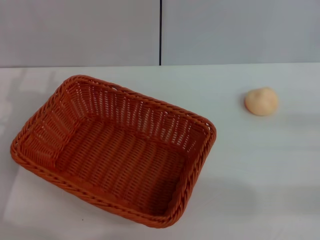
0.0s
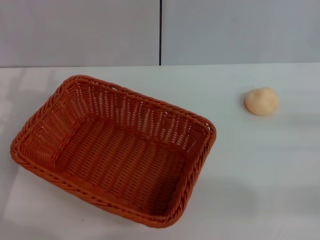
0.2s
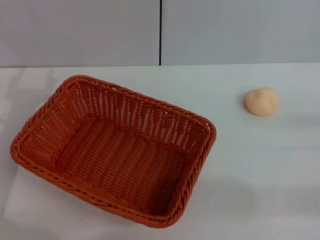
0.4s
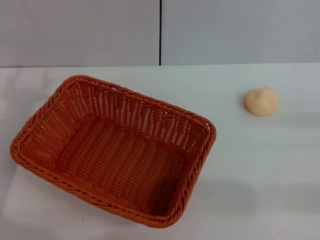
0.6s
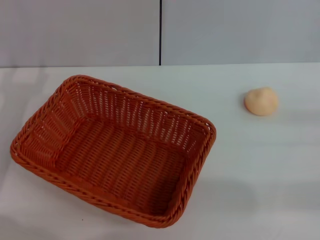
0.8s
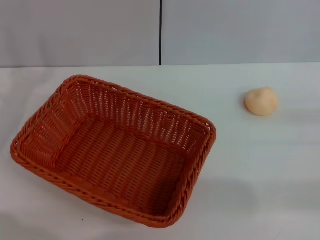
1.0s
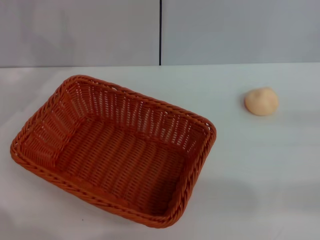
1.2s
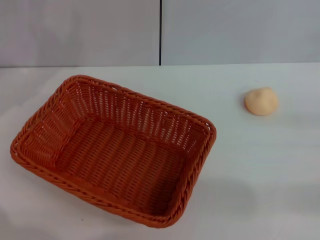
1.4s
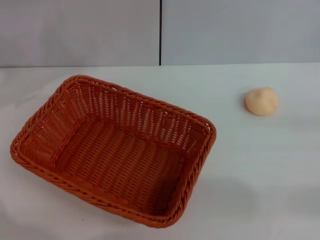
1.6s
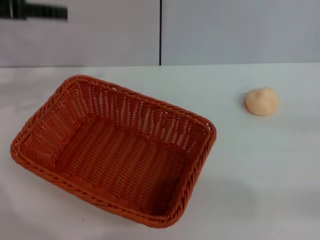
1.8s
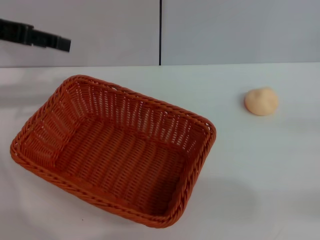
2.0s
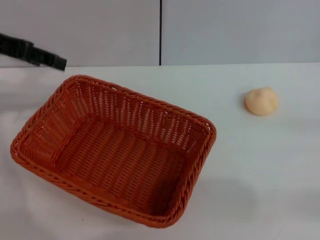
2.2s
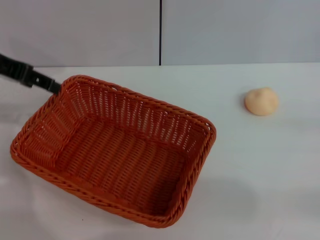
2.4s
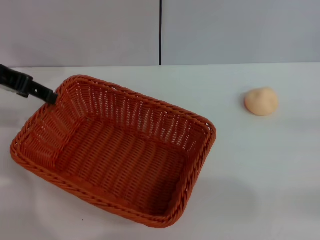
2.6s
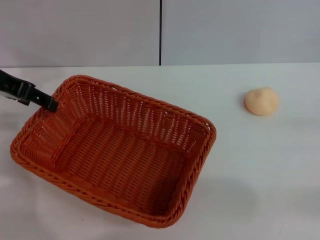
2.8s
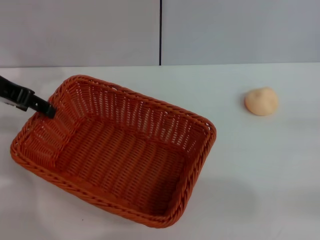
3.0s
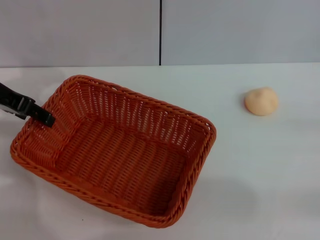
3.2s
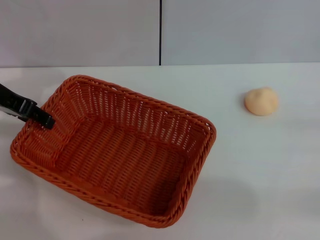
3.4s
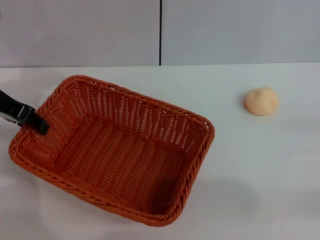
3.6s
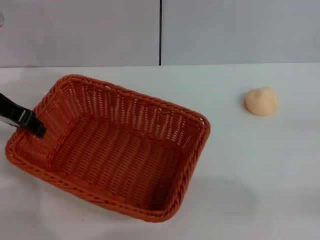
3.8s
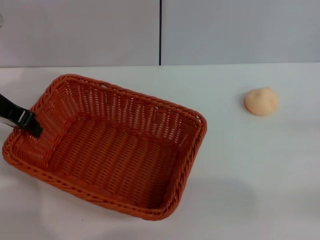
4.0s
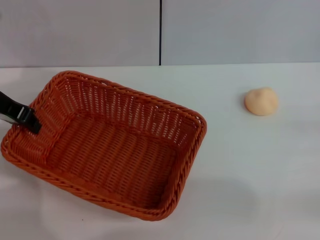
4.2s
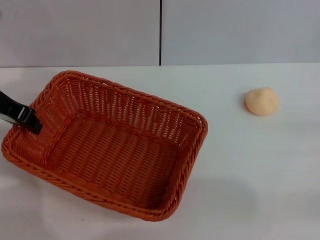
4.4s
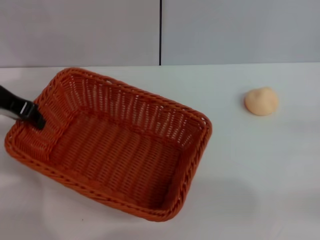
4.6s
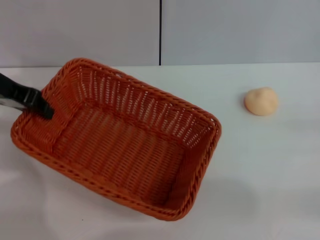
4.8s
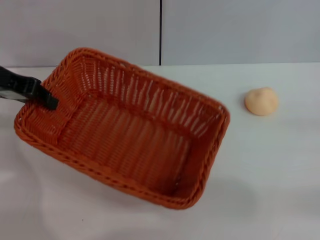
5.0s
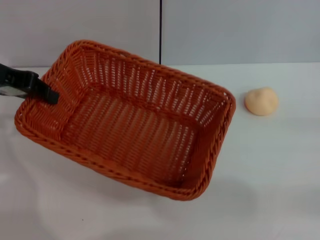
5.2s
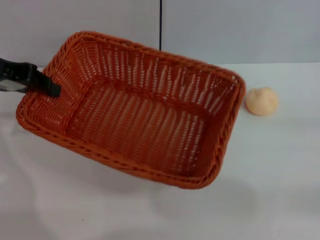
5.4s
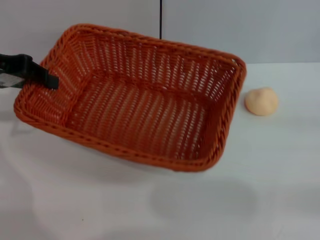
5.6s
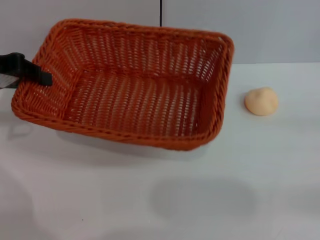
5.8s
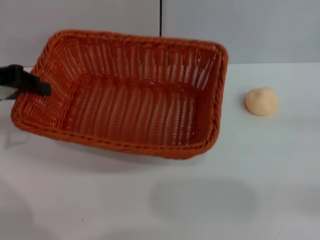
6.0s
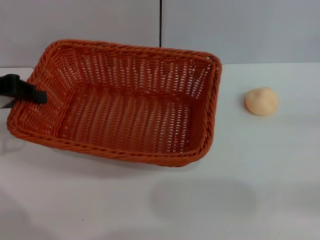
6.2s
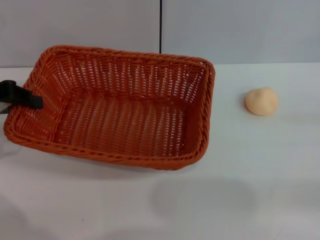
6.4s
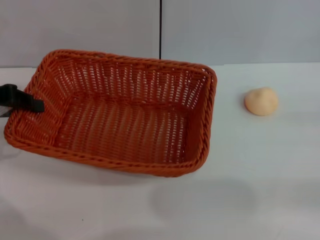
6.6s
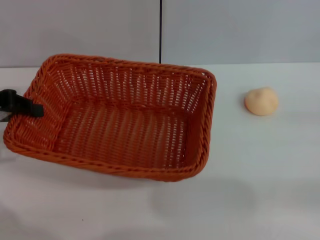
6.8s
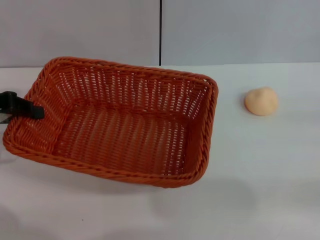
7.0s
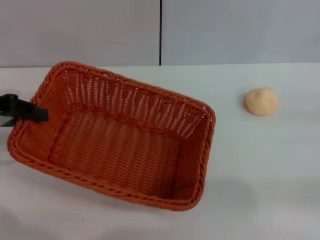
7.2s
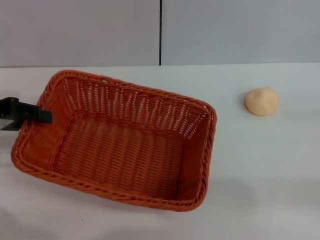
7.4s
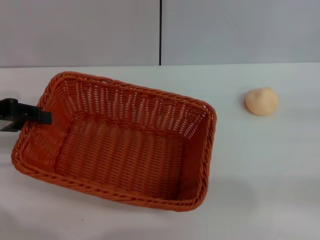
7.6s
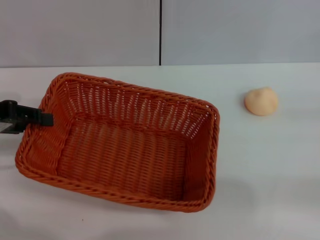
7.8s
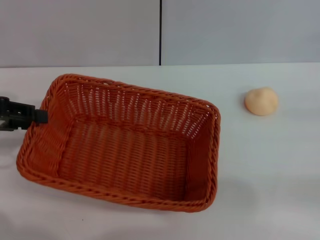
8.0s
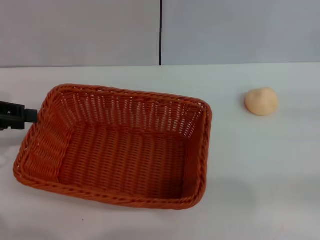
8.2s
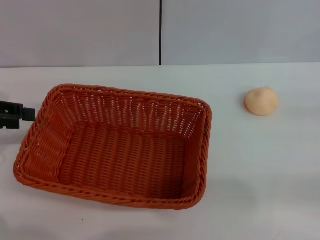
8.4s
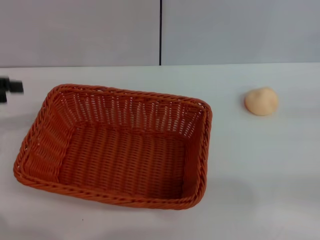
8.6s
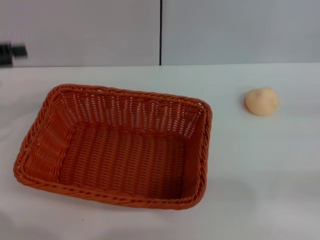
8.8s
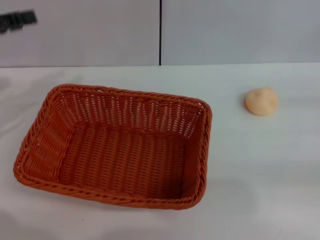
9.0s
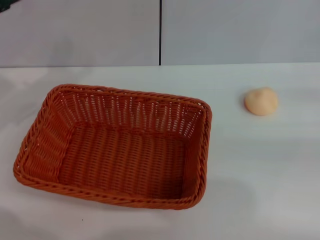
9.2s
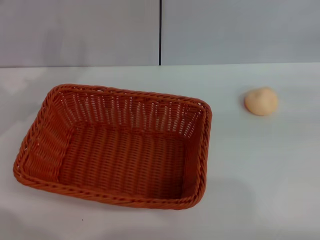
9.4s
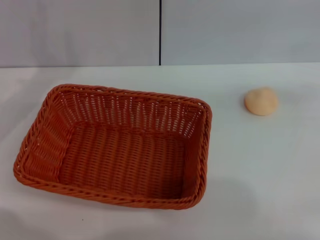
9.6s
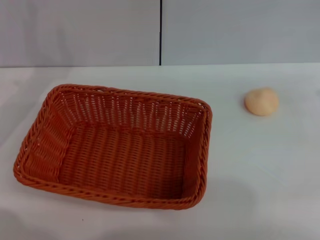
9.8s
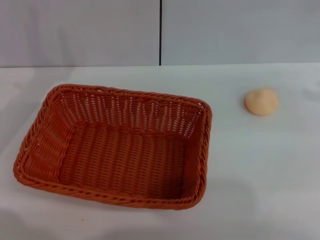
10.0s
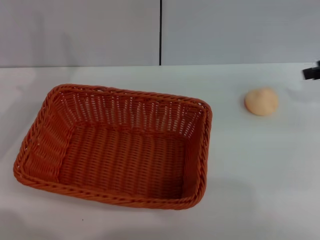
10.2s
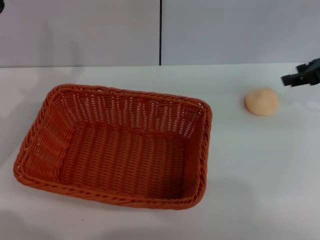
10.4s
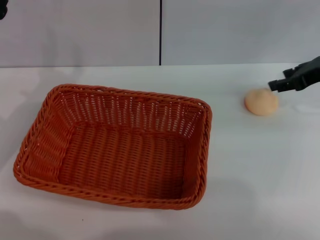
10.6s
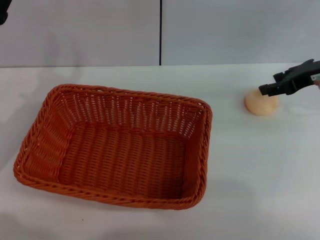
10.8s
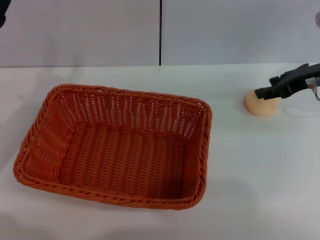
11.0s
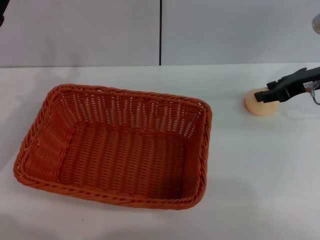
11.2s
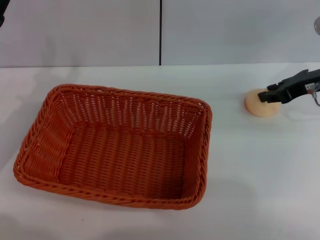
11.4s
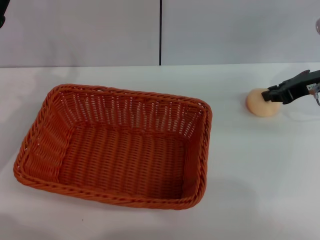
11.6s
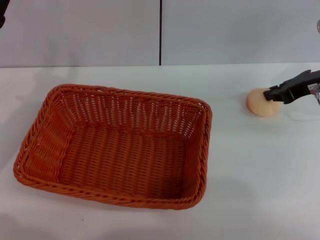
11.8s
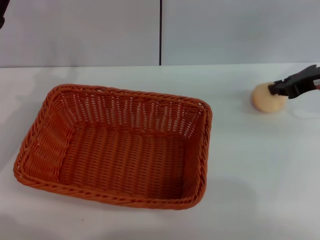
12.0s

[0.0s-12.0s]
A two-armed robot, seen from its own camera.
Step, 0.0s to 8.0s: Move the basket to the center of view with the left gripper.
3.0s to 4.4s: The left gripper closes its fingers.
4.4s to 6.0s: The left gripper moves about 5 cm.
6.0s to 7.6s: The left gripper opens up.
7.6s to 9.0s: The left gripper opens.
9.0s to 10.4s: The left gripper goes some 10 cm downward. Meanwhile the right gripper travels forward and to the left by about 20 cm.
10.4s to 12.0s: The right gripper closes.

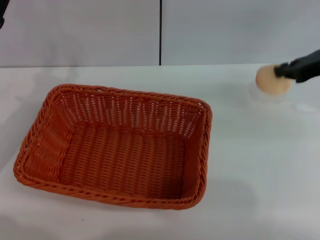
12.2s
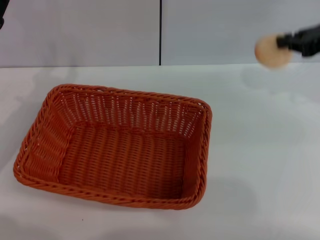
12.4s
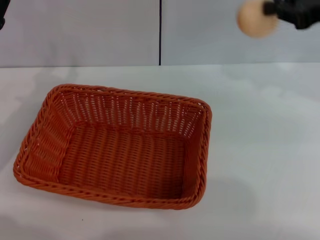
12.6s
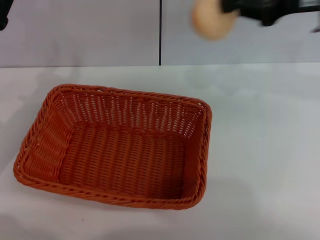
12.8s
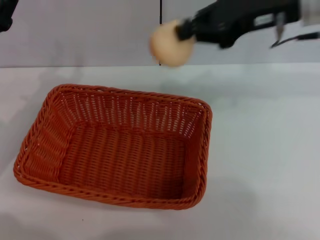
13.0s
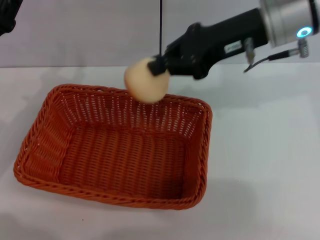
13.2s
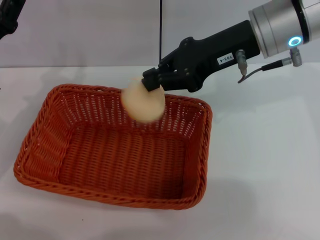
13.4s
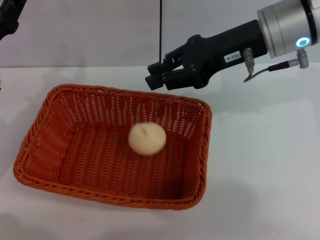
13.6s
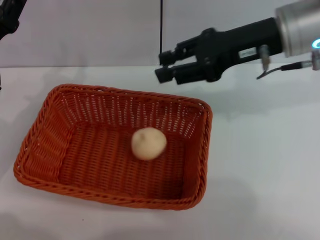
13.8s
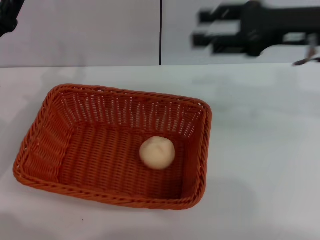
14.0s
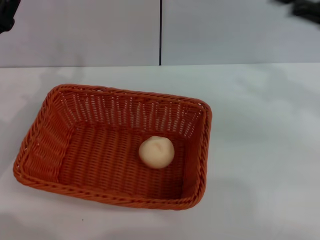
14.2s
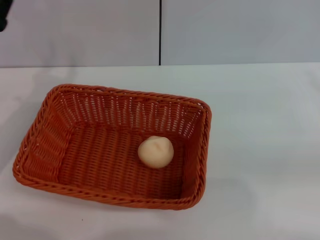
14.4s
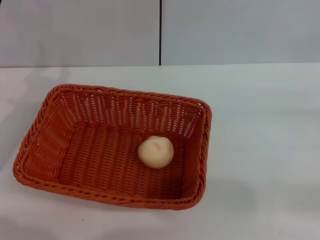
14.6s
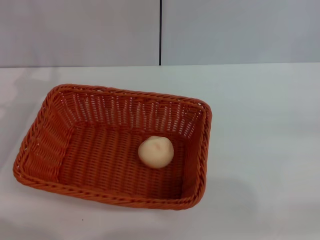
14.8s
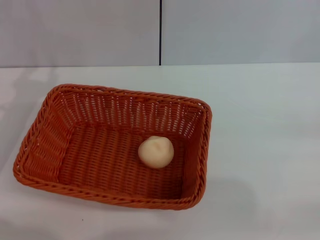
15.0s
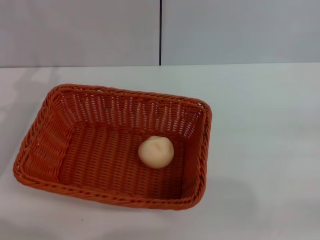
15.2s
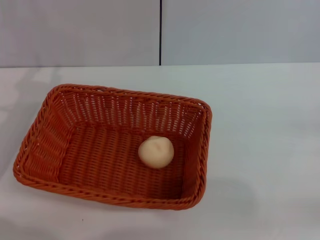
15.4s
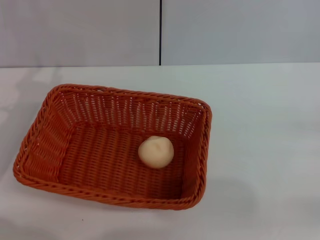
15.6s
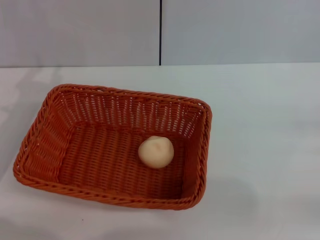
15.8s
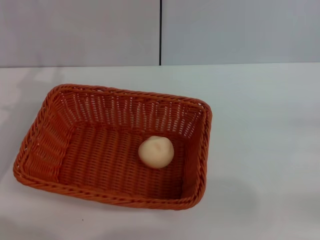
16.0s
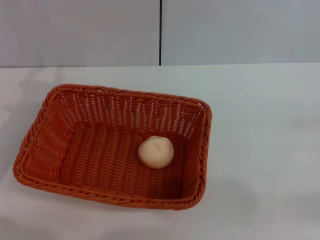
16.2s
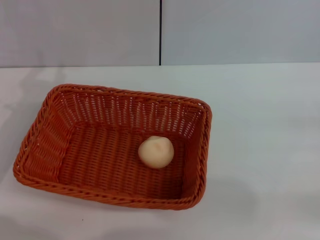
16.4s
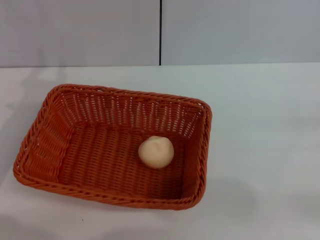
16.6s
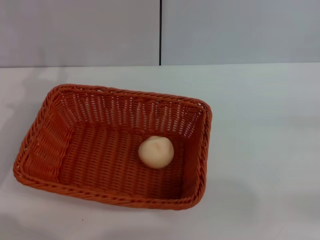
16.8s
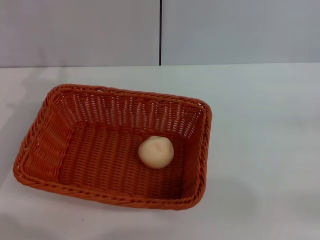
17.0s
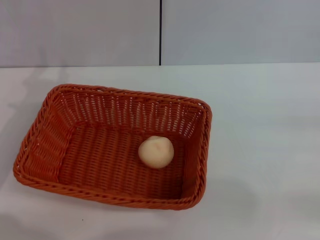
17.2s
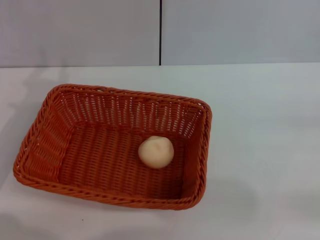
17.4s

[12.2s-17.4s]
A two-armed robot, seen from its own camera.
Step, 12.2s to 13.6s: Place the egg yolk pastry into the basket with the right gripper.
12.2s to 14.0s: The right gripper moves to the left and upward, approximately 10 cm, and opens its fingers.
14.0s to 15.6s: The right gripper moves to the right, backward and downward, about 25 cm.
15.6s to 17.4s: Both grippers stay about where they are.
